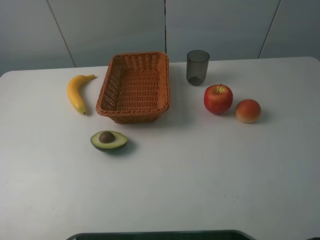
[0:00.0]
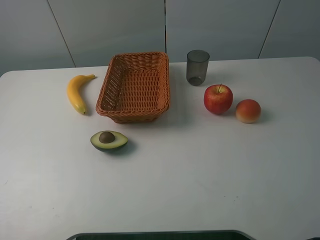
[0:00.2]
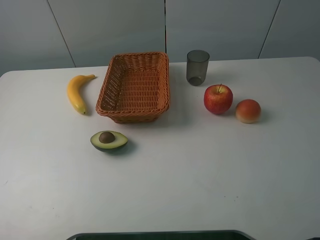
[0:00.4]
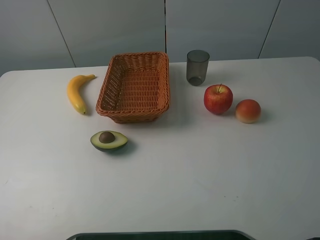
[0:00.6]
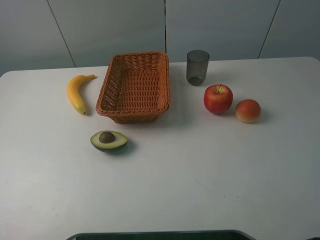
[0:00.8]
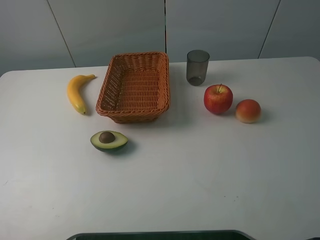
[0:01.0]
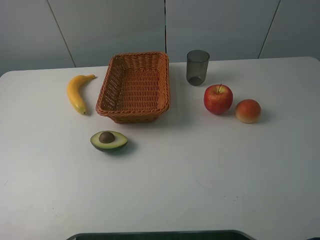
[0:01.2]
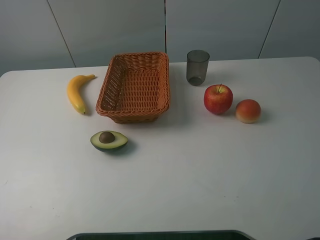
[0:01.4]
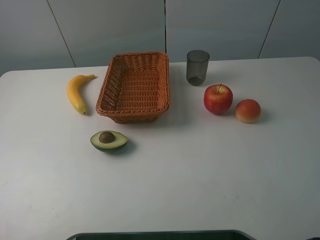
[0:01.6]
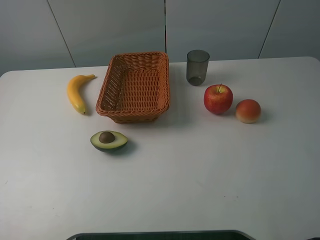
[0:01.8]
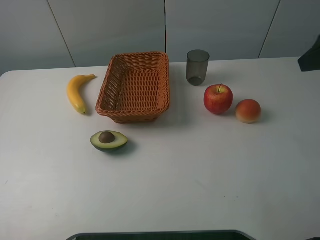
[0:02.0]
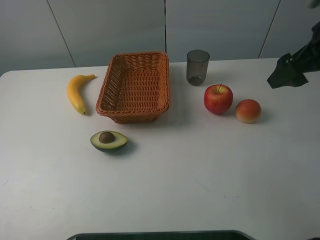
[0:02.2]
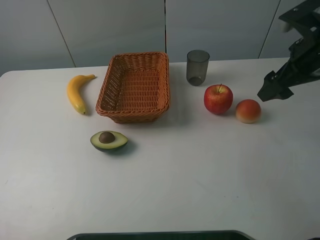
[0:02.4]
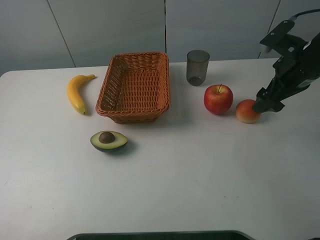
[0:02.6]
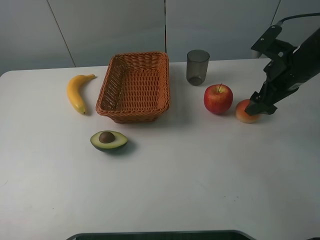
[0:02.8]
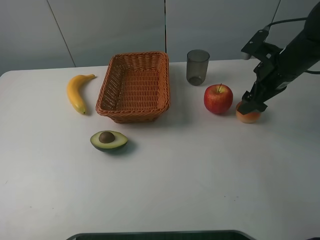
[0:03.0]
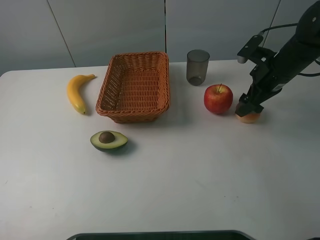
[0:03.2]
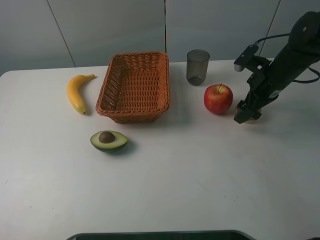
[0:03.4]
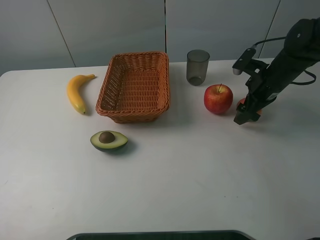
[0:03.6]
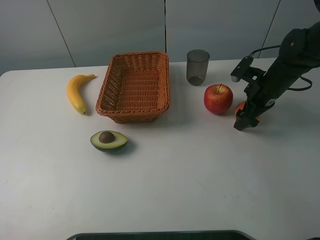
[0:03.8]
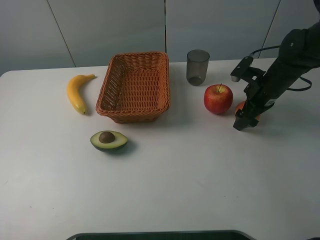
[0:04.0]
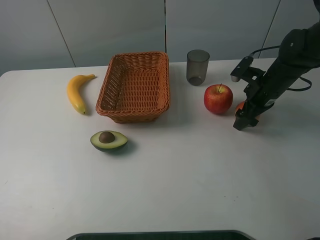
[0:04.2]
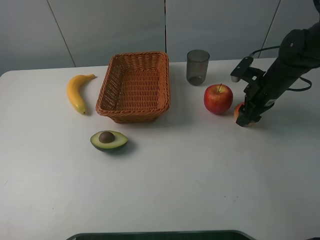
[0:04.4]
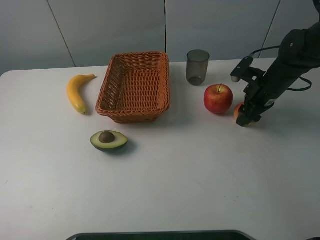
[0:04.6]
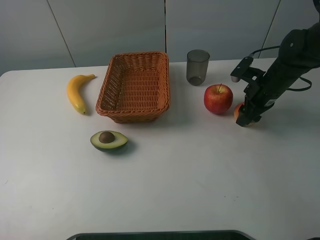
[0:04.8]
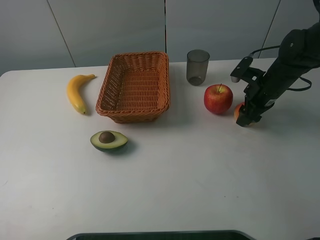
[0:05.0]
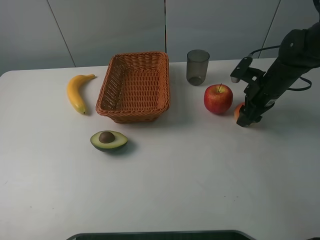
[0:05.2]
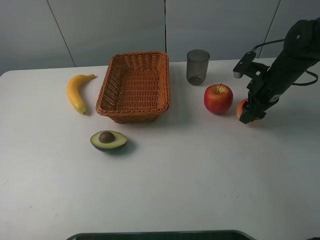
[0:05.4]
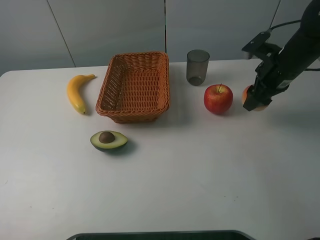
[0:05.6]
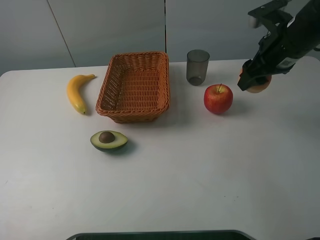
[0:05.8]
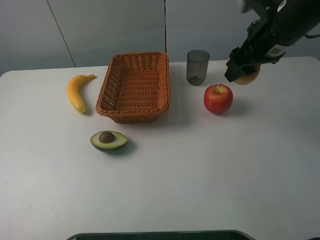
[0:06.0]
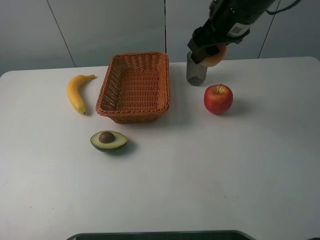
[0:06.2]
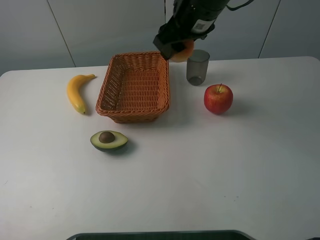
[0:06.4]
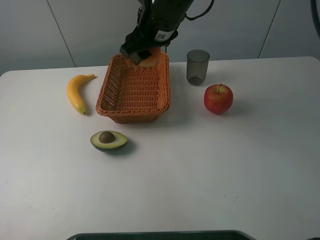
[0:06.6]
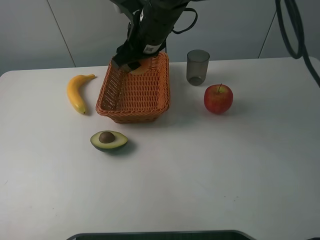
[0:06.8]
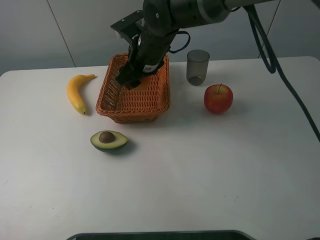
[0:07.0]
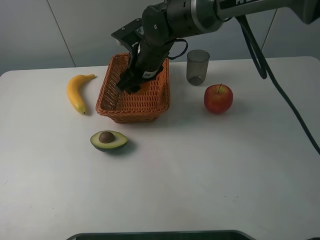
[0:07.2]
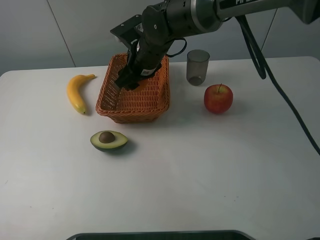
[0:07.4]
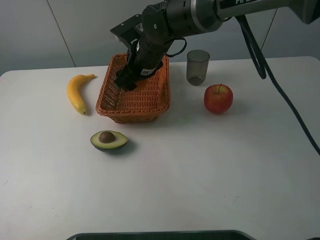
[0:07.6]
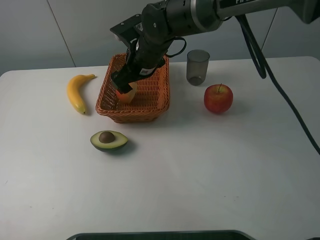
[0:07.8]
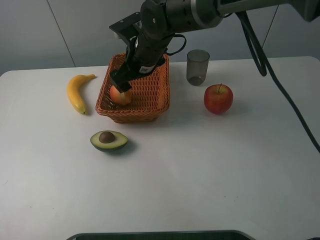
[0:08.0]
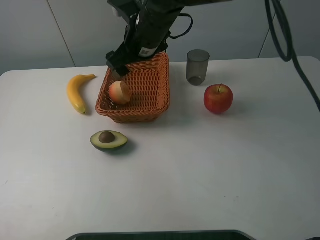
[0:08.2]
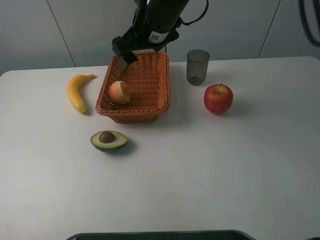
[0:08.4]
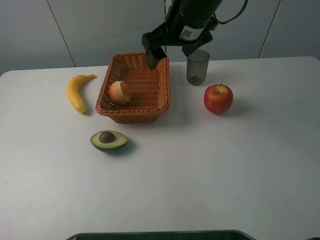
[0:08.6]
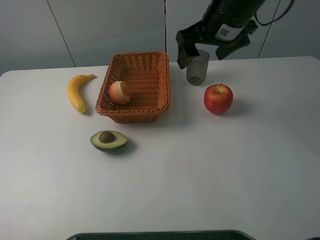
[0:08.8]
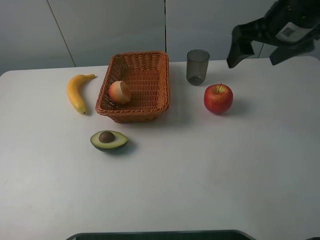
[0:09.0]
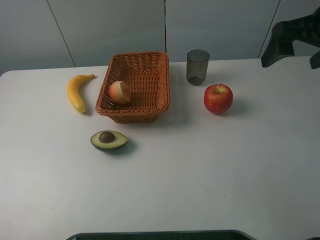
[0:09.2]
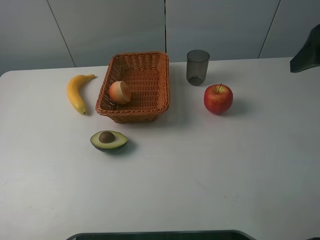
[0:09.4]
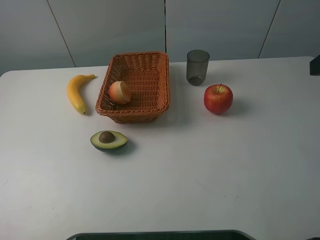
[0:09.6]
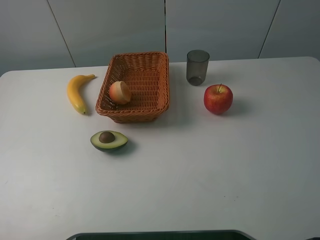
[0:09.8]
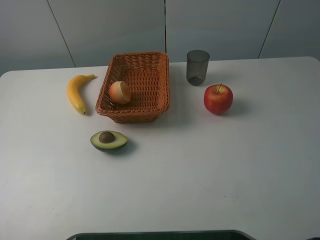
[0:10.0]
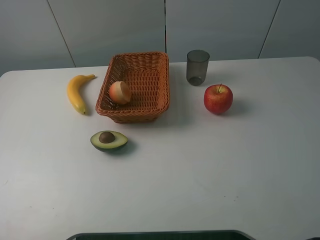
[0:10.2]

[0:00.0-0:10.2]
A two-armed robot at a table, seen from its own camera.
0:01.4 to 0:03.0: The right gripper heads forward and downward, covering about 35 cm.
0:03.0 to 0:04.4: The right gripper shifts roughly 5 cm downward, and closes its fingers.
0:04.4 to 0:05.8: The right gripper goes roughly 15 cm upward.
0:05.8 to 0:07.2: The right gripper heads to the left, covering approximately 25 cm.
0:07.2 to 0:08.8: The right gripper heads to the right and upward, covering roughly 20 cm, and opens.
0:08.8 to 0:10.2: The right gripper travels backward and to the right by roughly 35 cm.

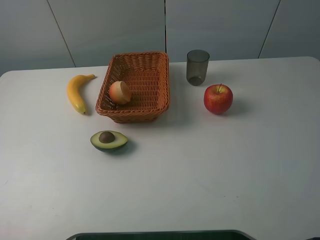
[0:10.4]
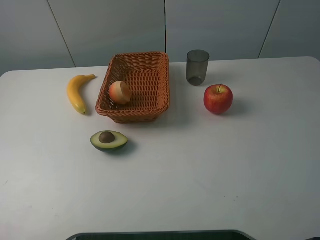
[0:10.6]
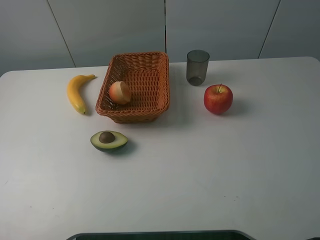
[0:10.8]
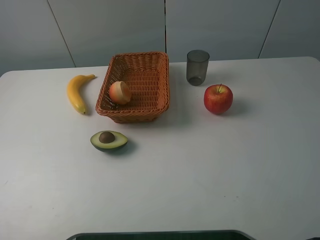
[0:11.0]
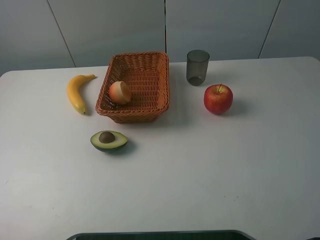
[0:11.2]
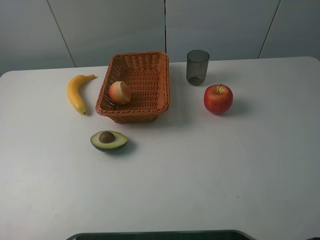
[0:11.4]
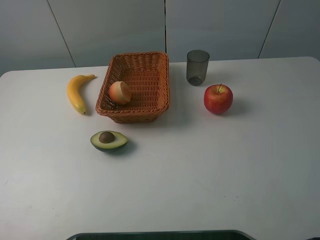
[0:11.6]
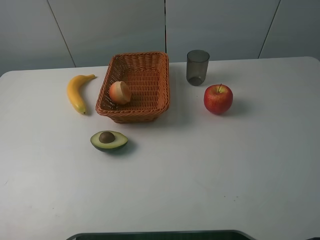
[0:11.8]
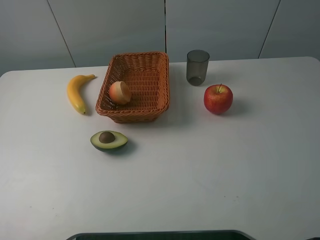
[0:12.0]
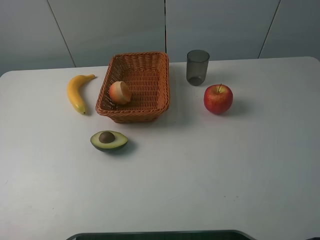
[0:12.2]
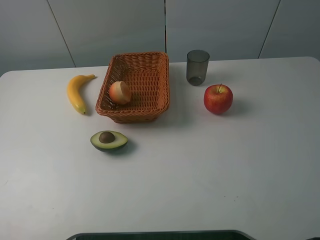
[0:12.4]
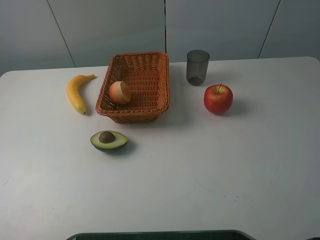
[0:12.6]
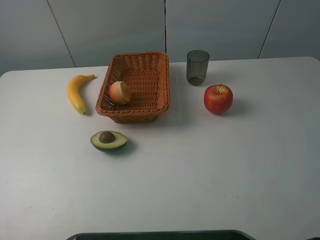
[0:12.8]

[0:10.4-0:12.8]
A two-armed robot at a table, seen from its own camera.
0:10.4 to 0:12.8: The two grippers keep their place.
